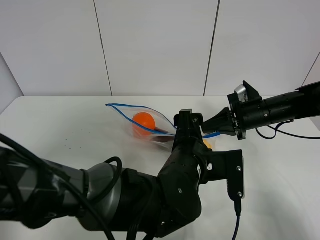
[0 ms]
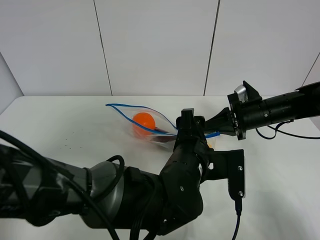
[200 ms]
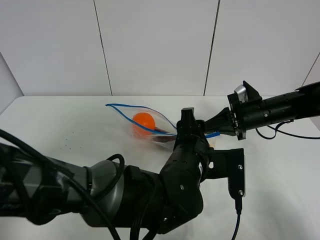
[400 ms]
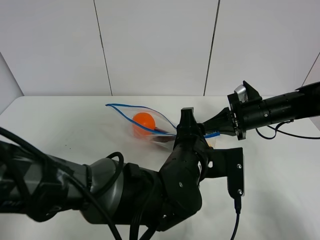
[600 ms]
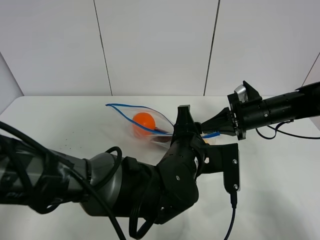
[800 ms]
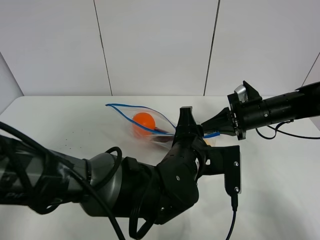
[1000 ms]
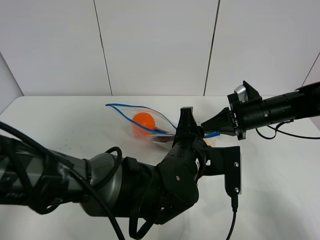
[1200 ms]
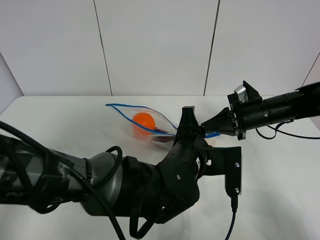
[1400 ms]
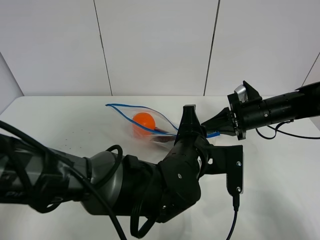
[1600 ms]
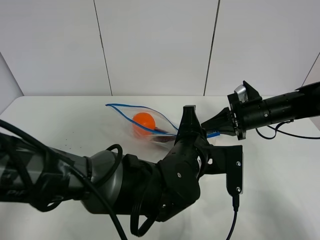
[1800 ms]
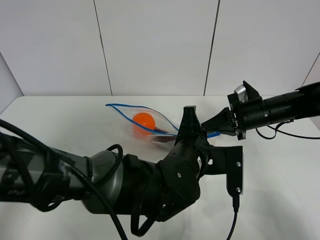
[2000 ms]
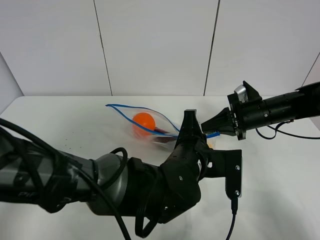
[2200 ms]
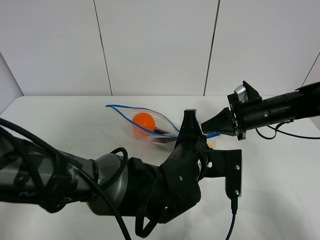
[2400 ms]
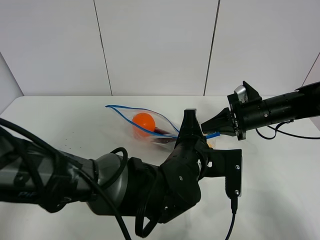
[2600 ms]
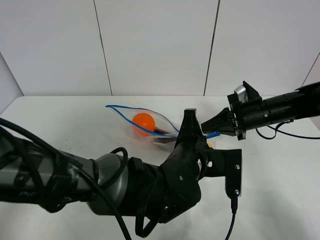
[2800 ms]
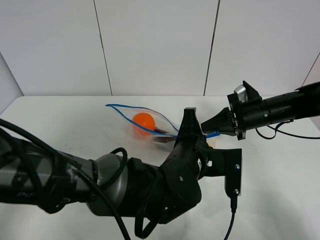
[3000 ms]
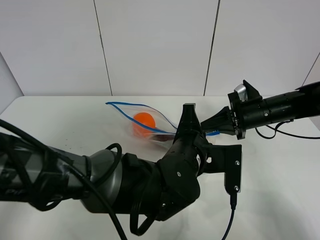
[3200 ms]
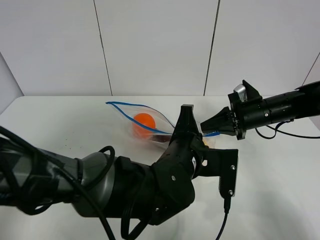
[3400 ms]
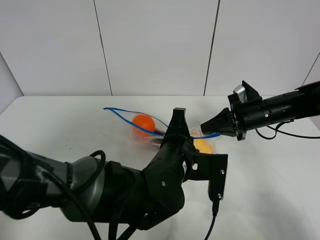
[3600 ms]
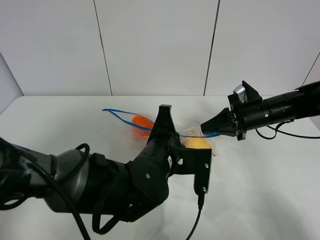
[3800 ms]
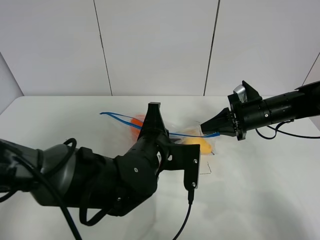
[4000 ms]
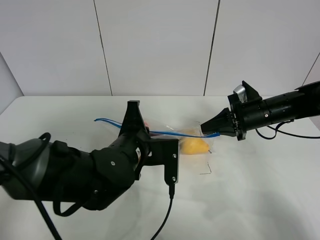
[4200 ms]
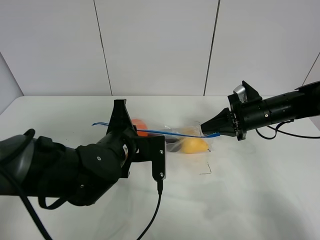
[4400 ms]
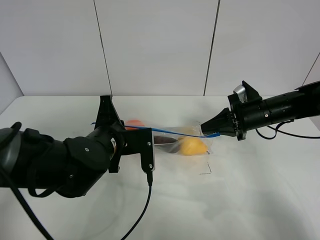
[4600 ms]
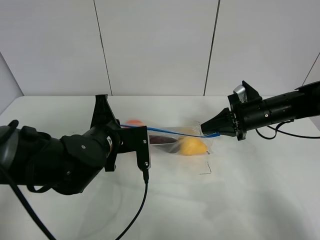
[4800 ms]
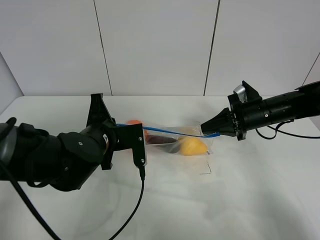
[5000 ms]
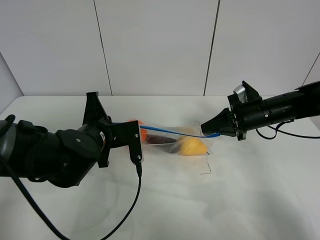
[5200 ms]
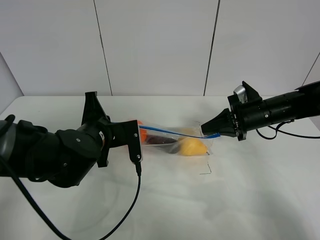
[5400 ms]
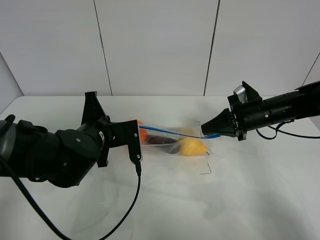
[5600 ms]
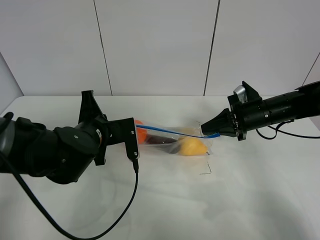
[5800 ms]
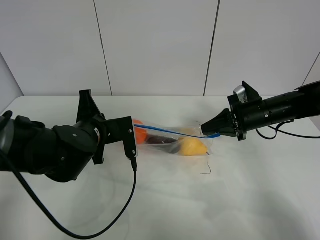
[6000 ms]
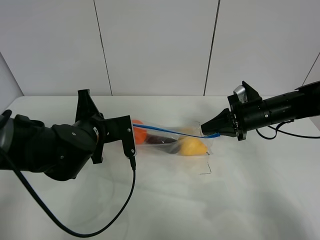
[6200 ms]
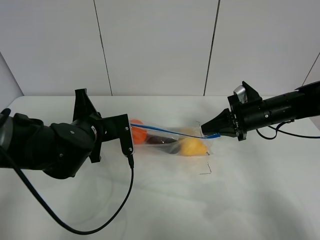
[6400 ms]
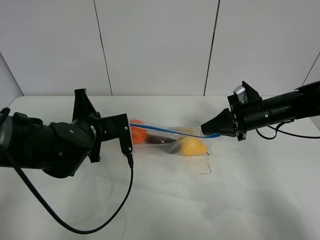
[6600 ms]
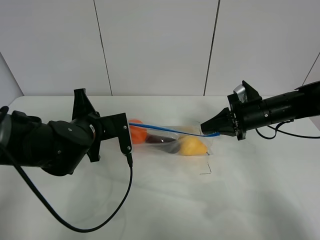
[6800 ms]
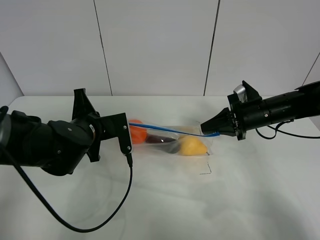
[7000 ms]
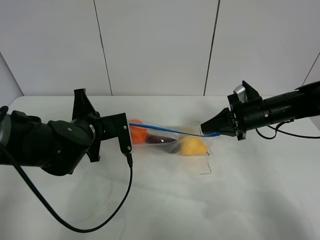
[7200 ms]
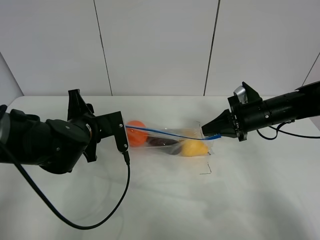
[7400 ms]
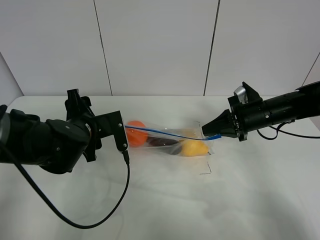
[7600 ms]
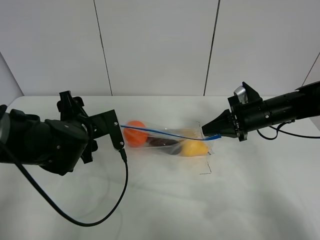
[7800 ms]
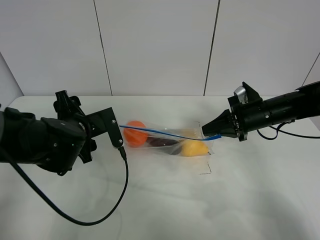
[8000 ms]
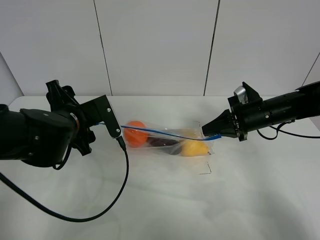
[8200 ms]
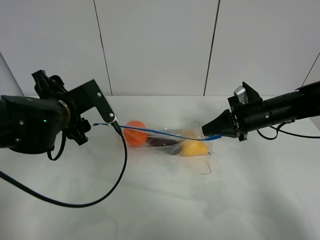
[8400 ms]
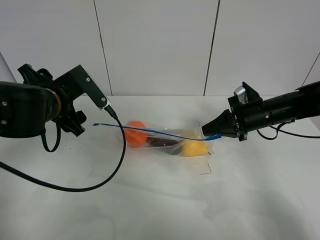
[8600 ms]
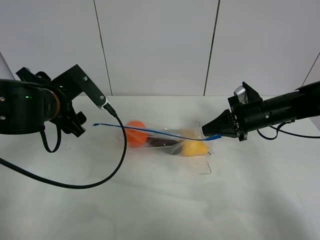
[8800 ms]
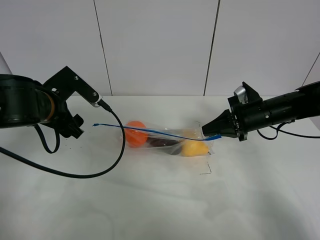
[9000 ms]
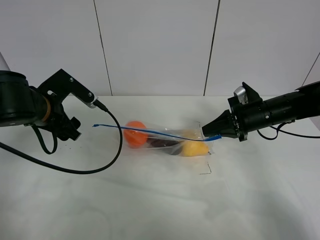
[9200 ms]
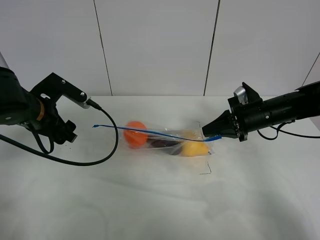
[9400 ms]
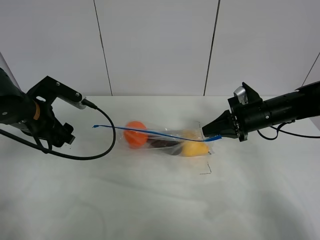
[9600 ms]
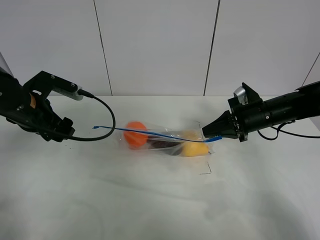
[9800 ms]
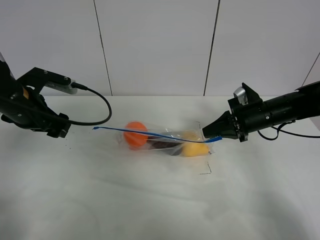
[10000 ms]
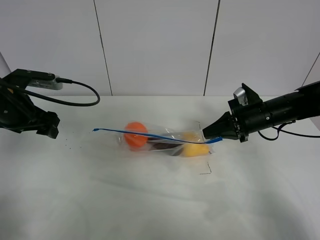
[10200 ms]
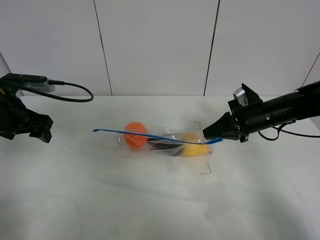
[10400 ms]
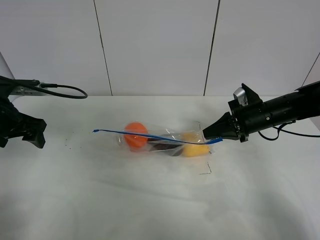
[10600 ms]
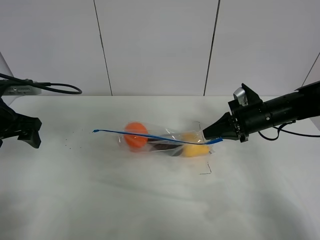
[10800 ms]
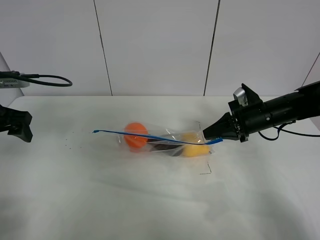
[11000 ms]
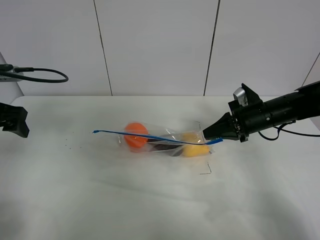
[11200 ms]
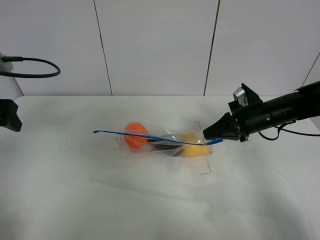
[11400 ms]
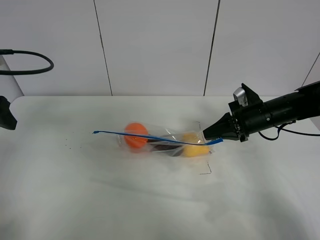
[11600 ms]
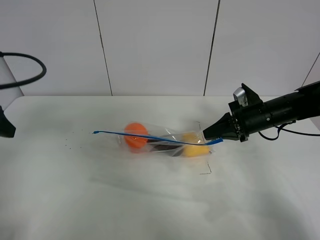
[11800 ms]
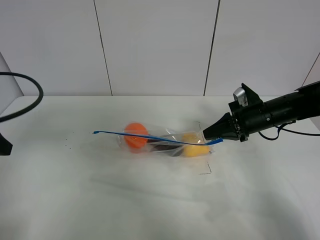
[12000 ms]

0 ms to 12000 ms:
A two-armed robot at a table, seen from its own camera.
Step, 0 ms to 7600 ms: Pull the fruit bag with left gripper.
0 ms to 1600 ms: The left gripper closes.
1600 ms to 3000 ms: Neither gripper changes place.
3000 ms to 4400 ms: The left gripper shifts roughly 15 cm to the left.
4400 ms to 6000 ms: The left gripper is displaced to the left by roughly 5 cm.
6000 ms to 7600 ms: The left gripper opens its fingers.
7600 ms to 9000 ms: The left gripper heads upward and to the left, covering roughly 10 cm.
9000 ms to 10400 ms: The left gripper is displaced to the left by about 10 cm.
10400 ms to 12000 ms: The left gripper moves backward and upward, roughly 15 cm.

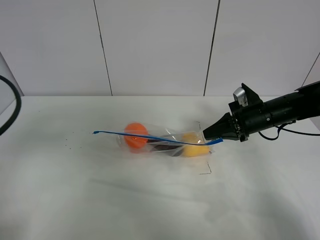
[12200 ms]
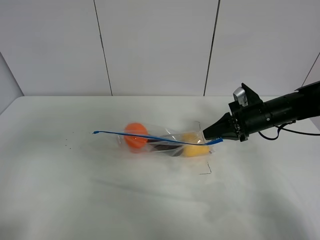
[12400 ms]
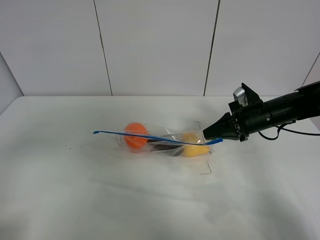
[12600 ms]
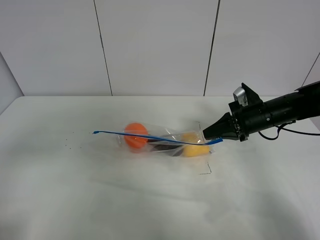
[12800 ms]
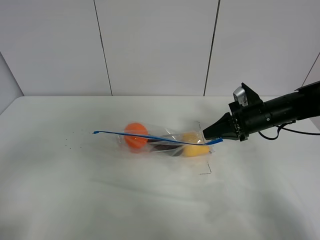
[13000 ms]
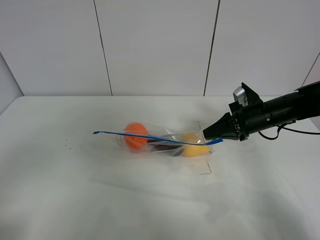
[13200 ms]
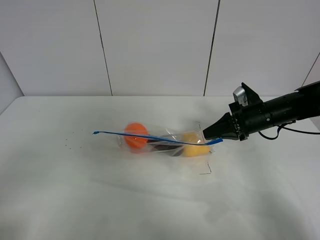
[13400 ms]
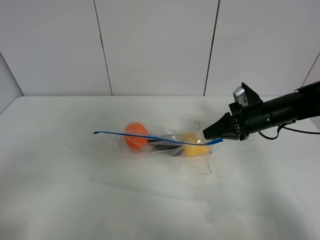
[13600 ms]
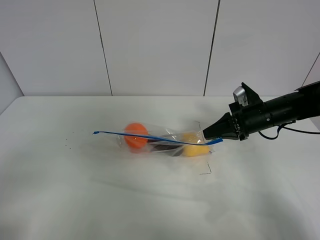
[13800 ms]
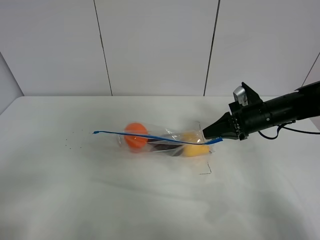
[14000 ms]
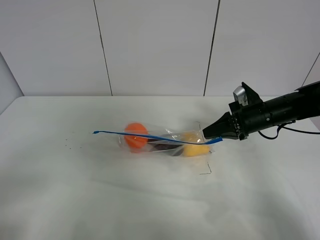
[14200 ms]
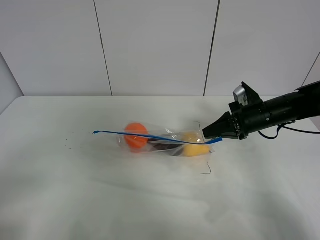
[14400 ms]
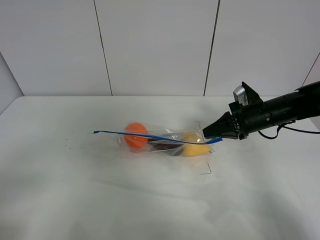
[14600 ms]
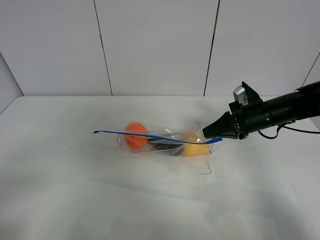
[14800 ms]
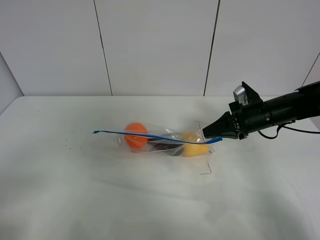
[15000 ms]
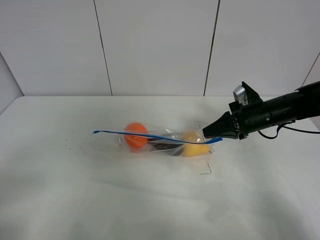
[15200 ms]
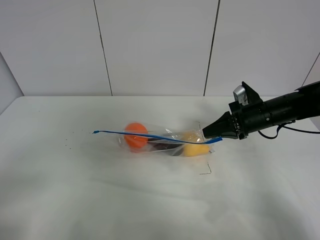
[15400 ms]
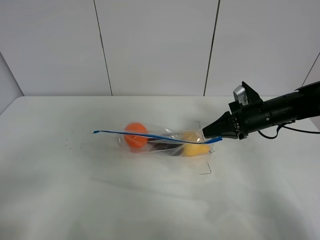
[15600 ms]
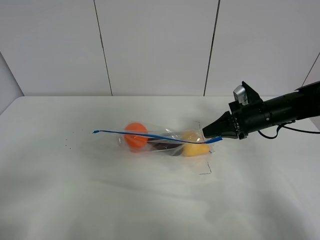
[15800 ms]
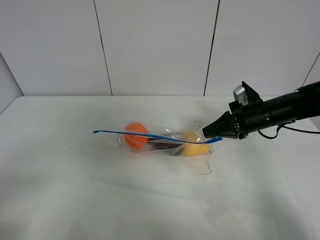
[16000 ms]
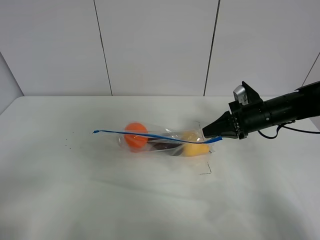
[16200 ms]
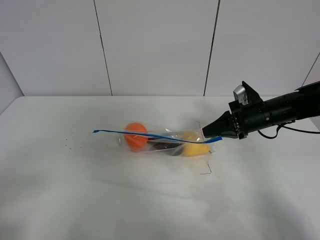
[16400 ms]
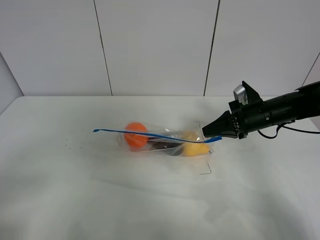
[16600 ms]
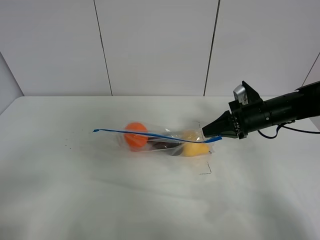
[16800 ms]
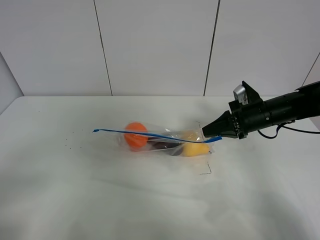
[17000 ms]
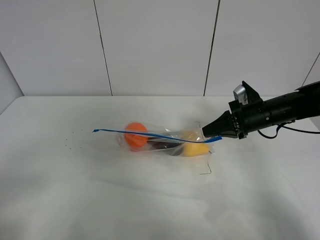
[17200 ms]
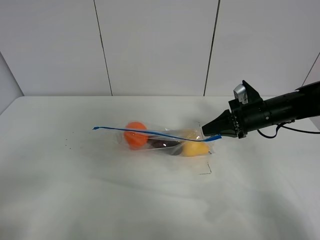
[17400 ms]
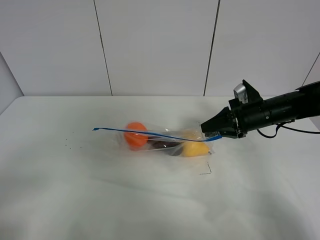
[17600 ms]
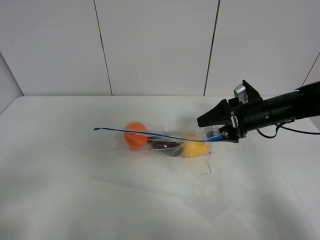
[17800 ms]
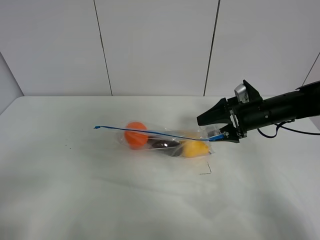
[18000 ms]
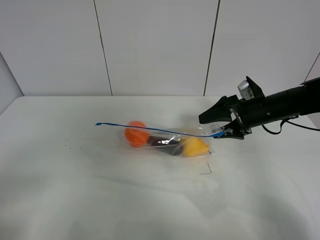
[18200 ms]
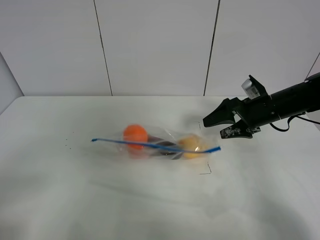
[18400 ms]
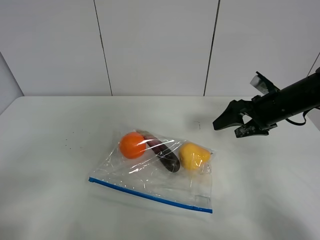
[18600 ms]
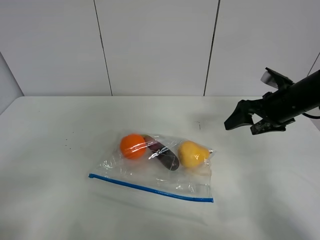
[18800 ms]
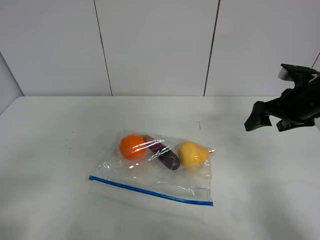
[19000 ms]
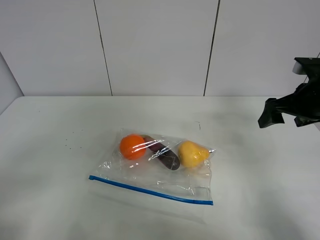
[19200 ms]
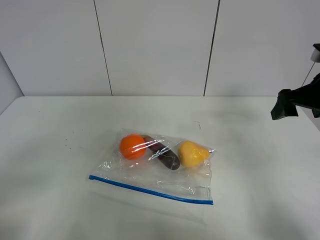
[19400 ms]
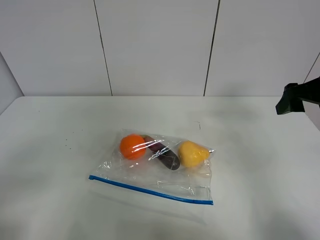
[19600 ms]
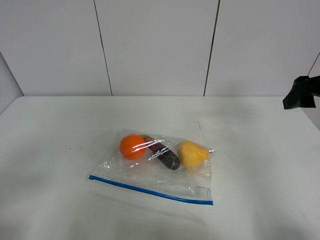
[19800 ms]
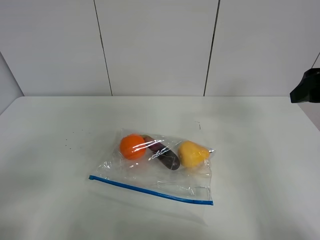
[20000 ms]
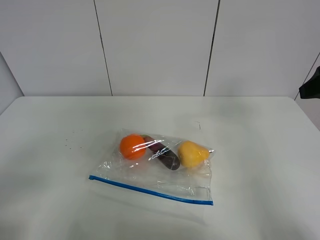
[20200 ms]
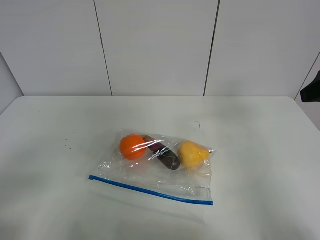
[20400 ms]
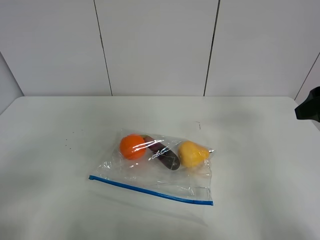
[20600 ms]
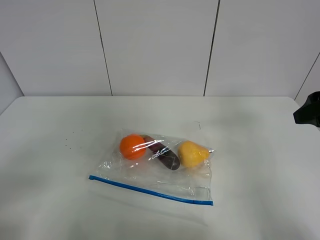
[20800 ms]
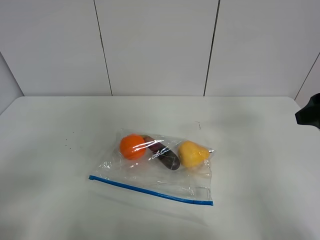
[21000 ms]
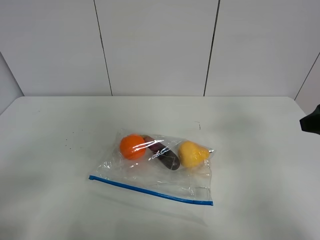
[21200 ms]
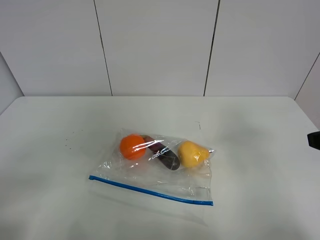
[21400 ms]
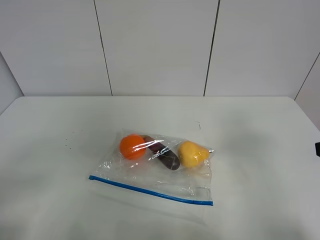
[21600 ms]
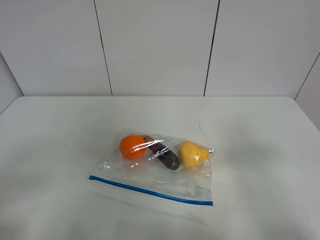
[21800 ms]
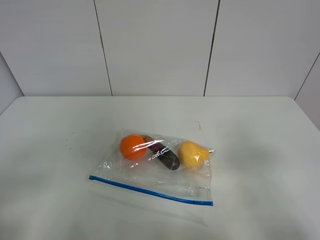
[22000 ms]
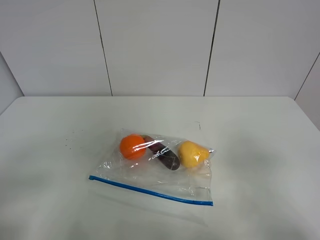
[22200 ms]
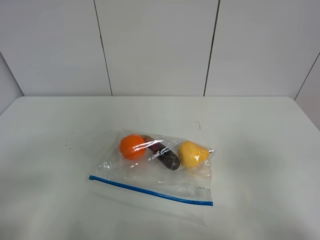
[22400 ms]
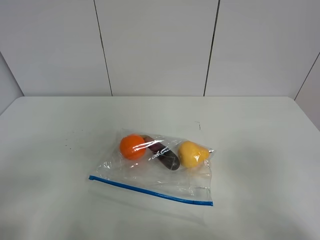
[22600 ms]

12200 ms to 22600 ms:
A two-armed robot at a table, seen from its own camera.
12200 ms to 13600 ms: The left gripper shifts about 15 cm backward.
13600 ms to 15200 ms: The grippers move only a little.
15200 ms to 16600 ms: Both grippers stay put.
16600 ms to 18200 ms: The right gripper opens its fingers.
18200 ms to 19600 ms: The right gripper moves upward, backward and to the right, approximately 15 cm.
19600 ms to 21200 ms: The right gripper heads backward, covering roughly 10 cm.
21200 ms to 22600 ms: The right gripper is displaced backward by approximately 20 cm.
